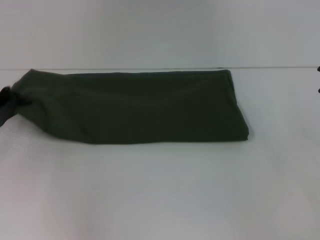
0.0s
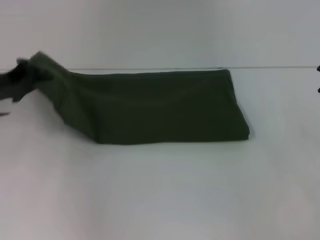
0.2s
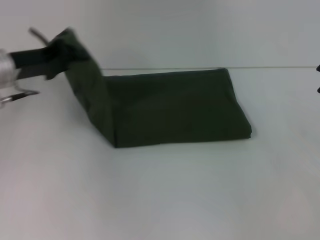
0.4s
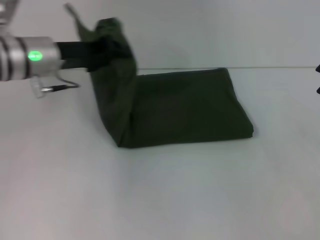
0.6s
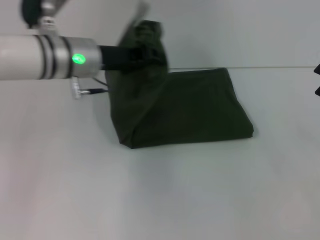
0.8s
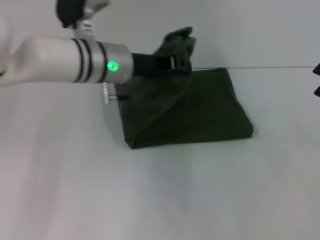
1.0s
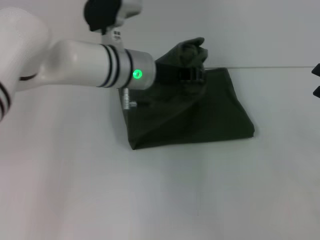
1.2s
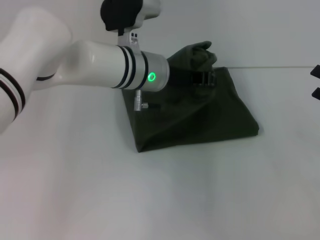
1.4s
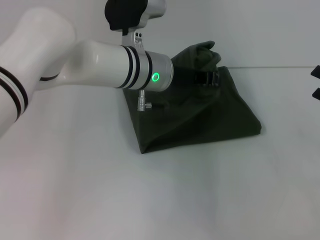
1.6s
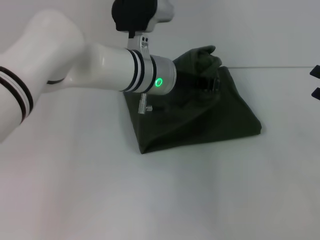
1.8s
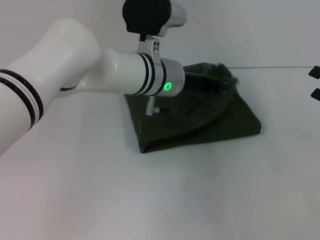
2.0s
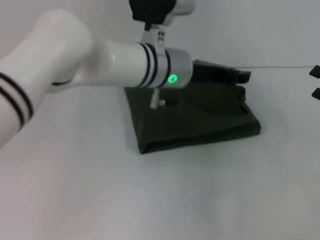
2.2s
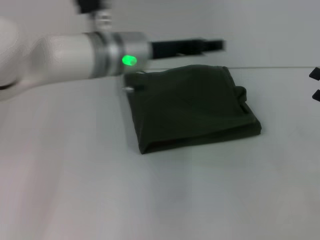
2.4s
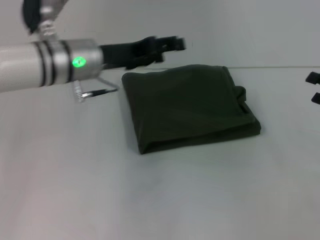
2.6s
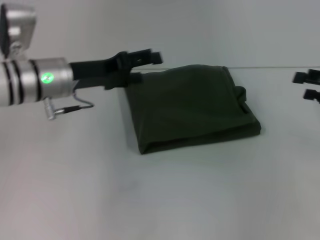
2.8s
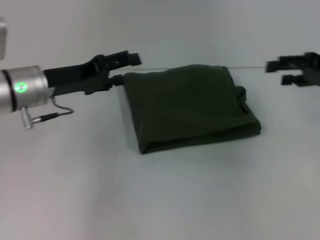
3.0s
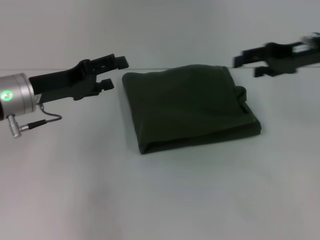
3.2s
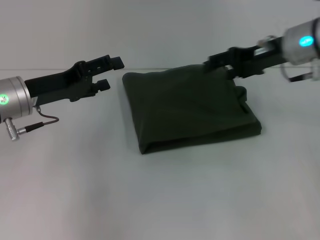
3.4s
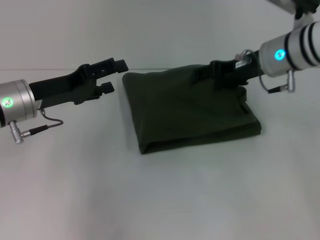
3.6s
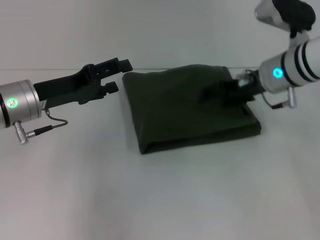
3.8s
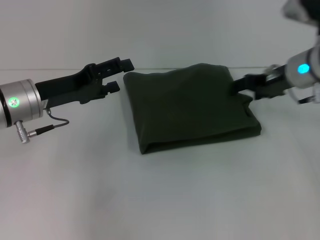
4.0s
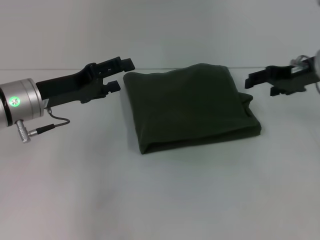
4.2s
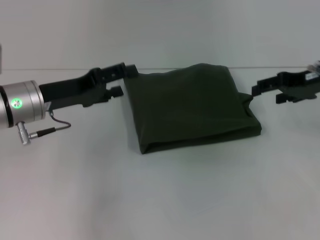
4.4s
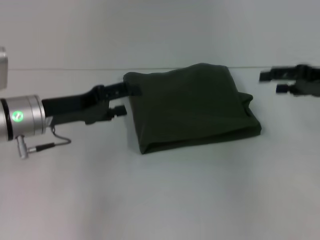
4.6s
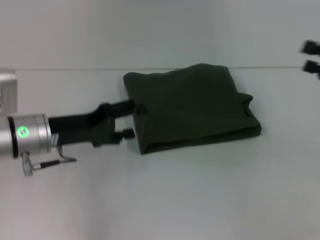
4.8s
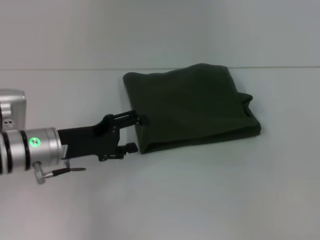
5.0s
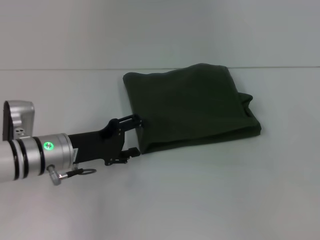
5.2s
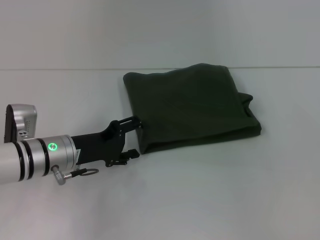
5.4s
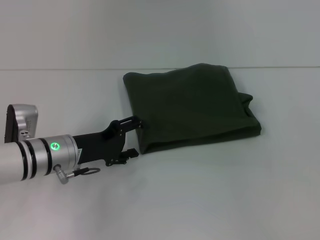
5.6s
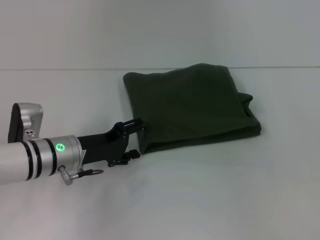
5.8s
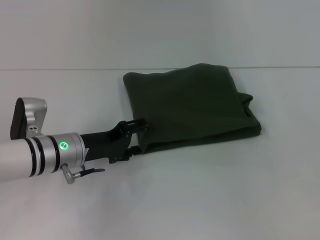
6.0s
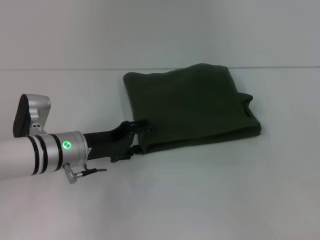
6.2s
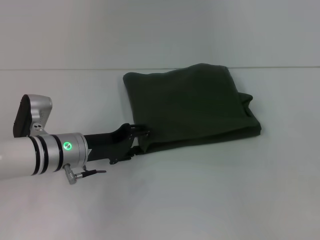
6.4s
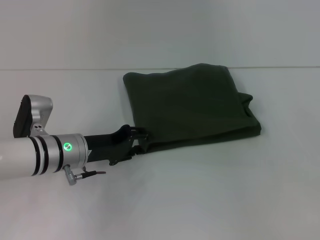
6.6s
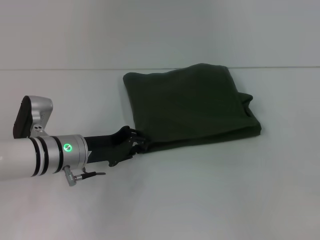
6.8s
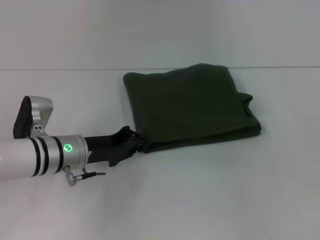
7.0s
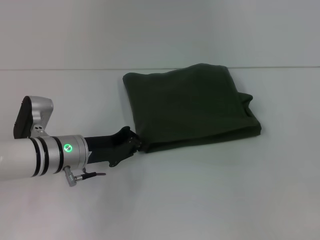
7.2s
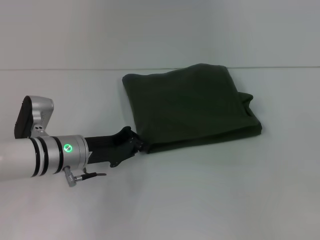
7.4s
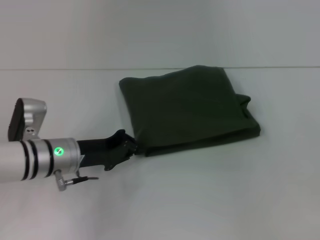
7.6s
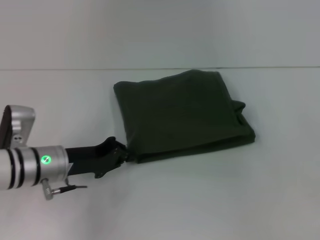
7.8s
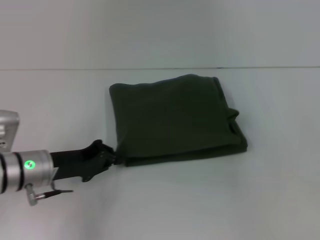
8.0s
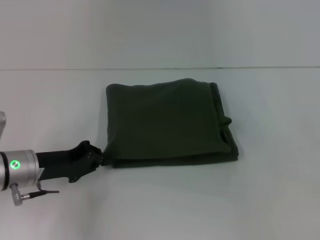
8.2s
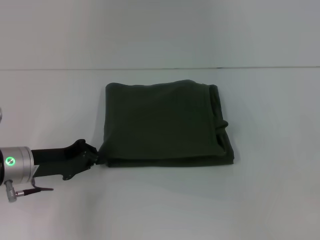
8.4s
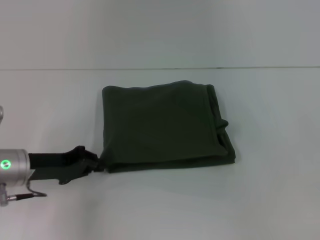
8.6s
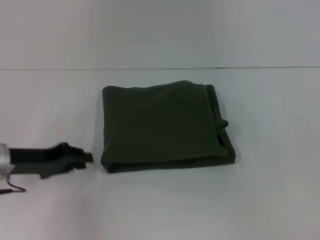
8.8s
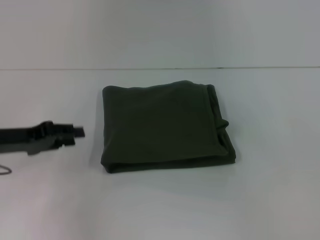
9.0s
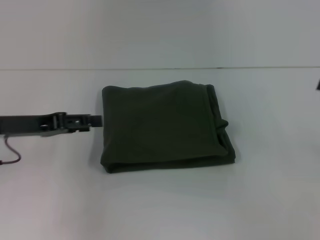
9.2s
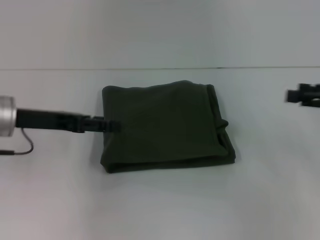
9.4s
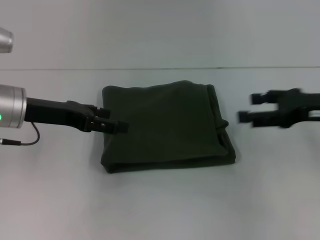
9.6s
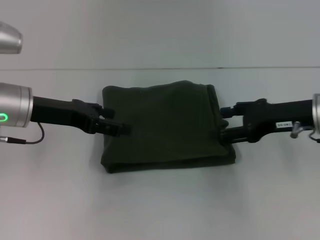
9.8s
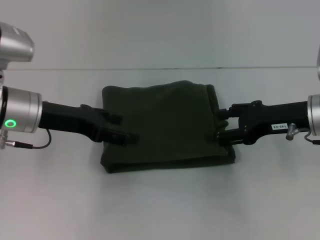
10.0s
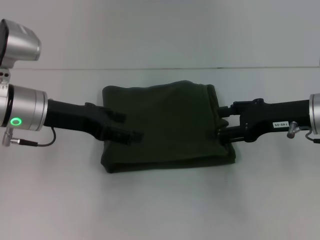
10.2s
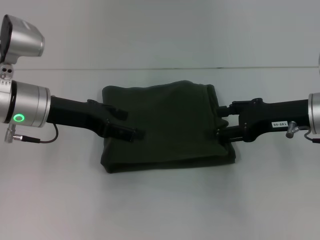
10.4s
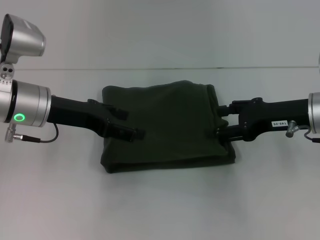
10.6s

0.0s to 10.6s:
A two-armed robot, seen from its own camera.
Step, 0.0s to 2.0s: Fold the clothes with your left hand.
0.0s to 1.6s: The left gripper goes some 30 cm to the right.
1.6s to 3.0s: The left gripper is displaced to the left by roughly 20 cm, and opens up. Meanwhile the right gripper goes roughly 10 cm upward and forward.
3.0s to 4.6s: The right gripper reaches some 15 cm to the left, then returns.
4.6s to 6.0s: The left gripper travels downward by roughly 5 cm. The right gripper is displaced to the right and backward by some 10 cm.
6.0s to 7.6s: The left gripper closes.
7.6s to 9.0s: The left gripper shifts roughly 10 cm to the left and upward.
9.0s to 10.6s: The left gripper goes about 10 cm to the right, and opens; the right gripper heads to the left, covering some 15 cm.

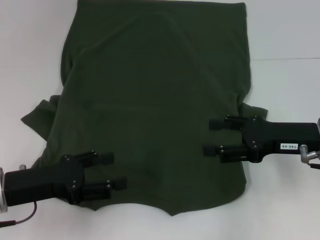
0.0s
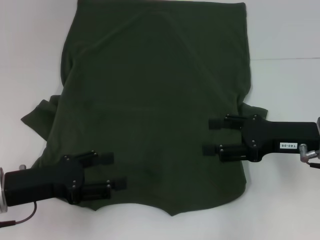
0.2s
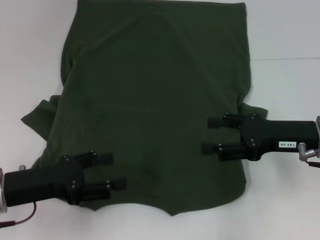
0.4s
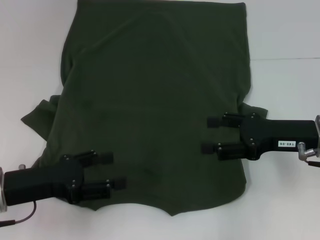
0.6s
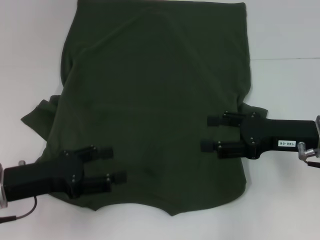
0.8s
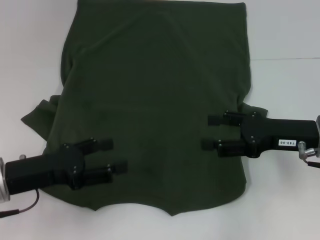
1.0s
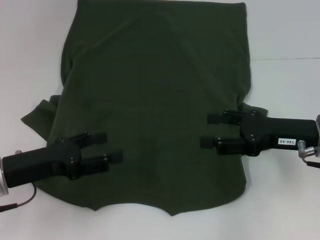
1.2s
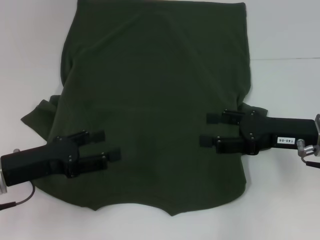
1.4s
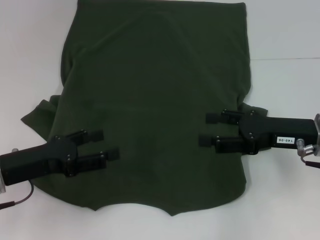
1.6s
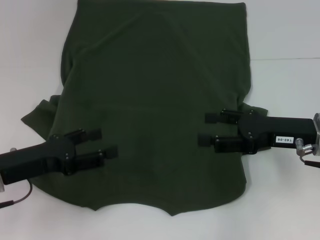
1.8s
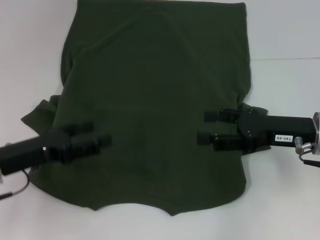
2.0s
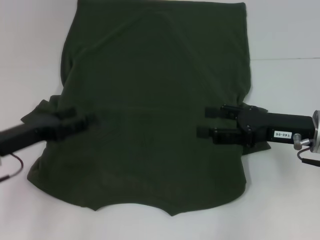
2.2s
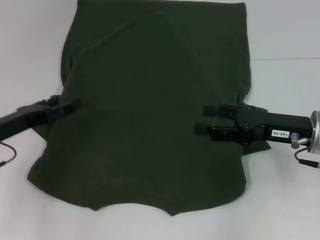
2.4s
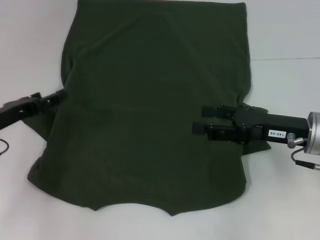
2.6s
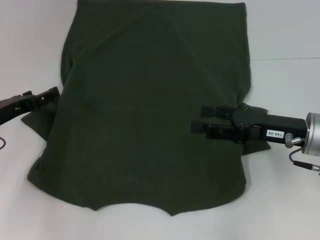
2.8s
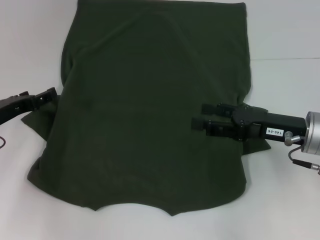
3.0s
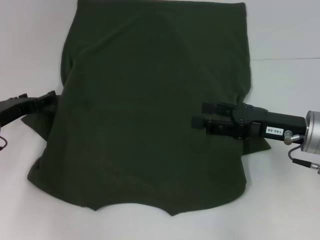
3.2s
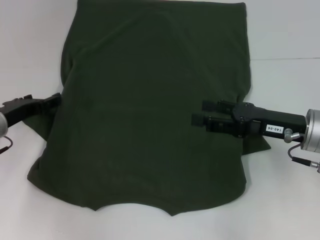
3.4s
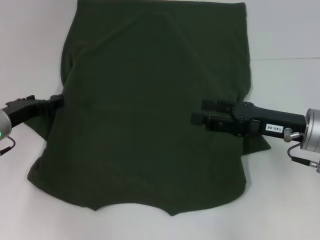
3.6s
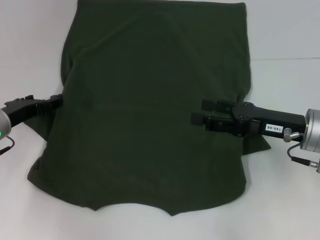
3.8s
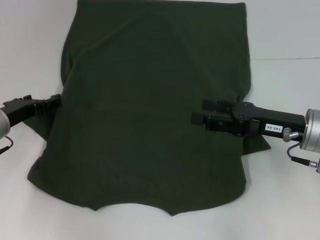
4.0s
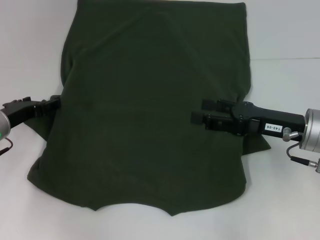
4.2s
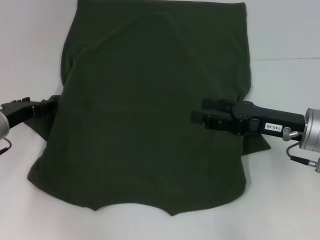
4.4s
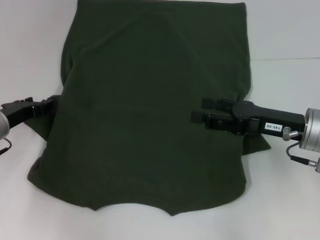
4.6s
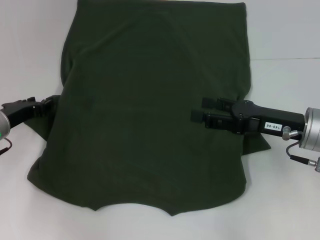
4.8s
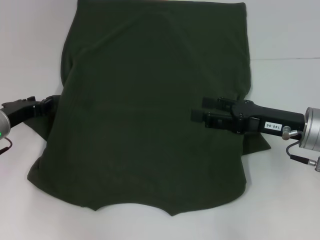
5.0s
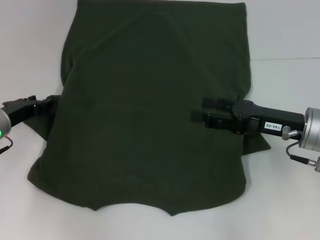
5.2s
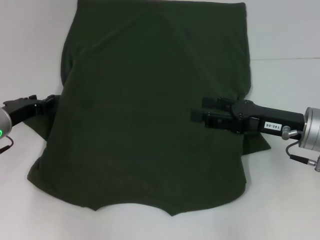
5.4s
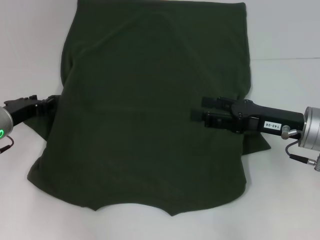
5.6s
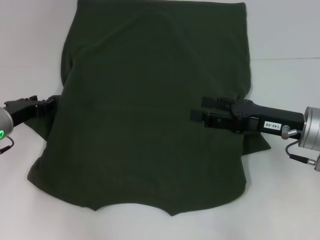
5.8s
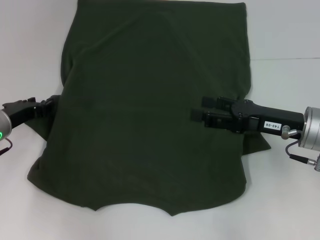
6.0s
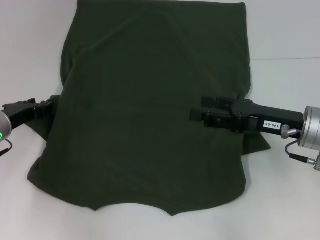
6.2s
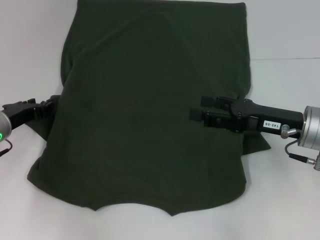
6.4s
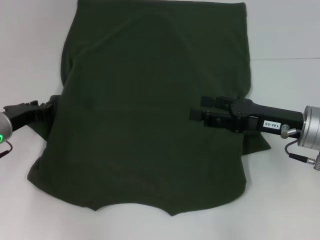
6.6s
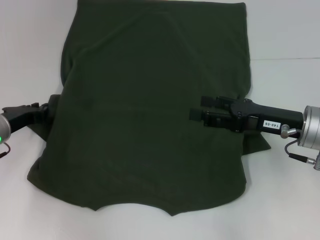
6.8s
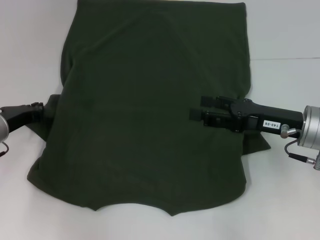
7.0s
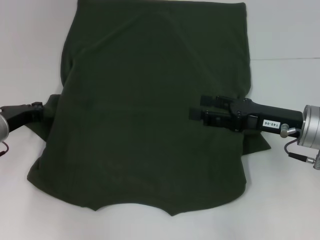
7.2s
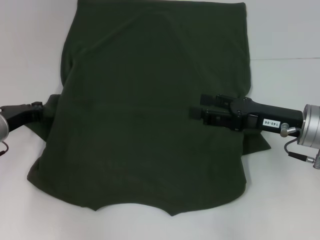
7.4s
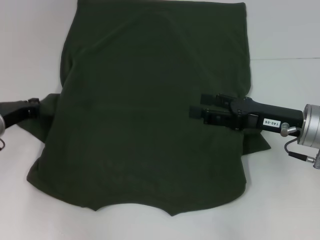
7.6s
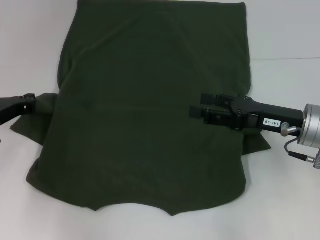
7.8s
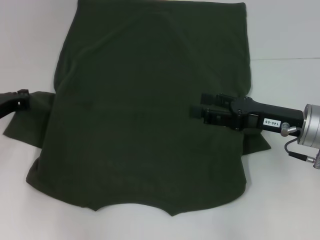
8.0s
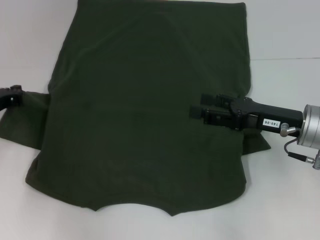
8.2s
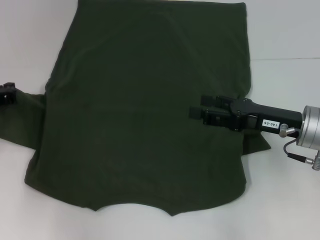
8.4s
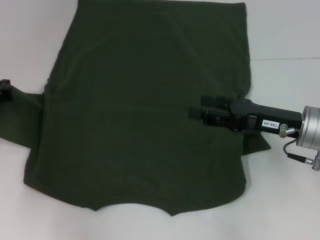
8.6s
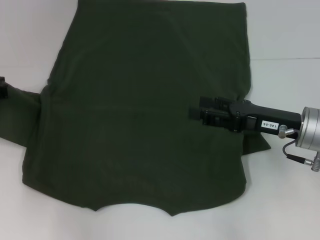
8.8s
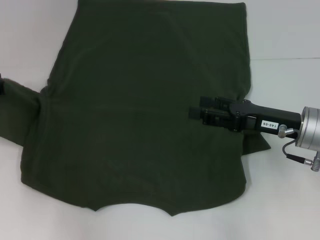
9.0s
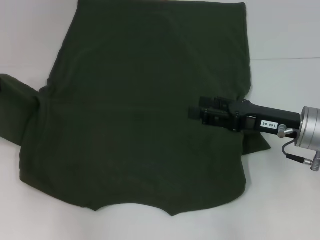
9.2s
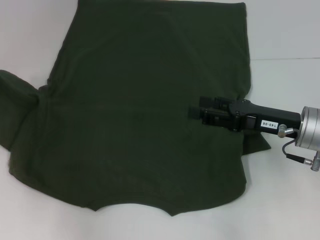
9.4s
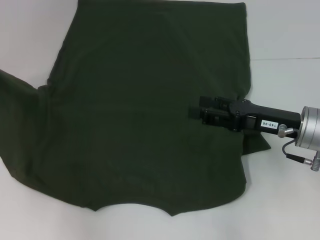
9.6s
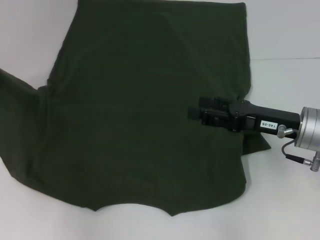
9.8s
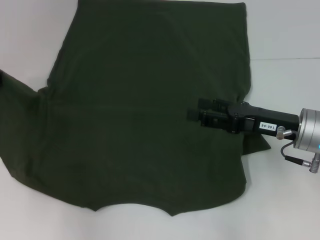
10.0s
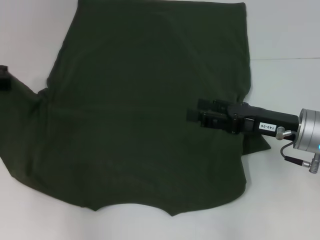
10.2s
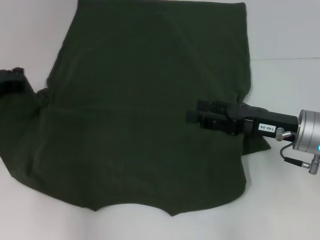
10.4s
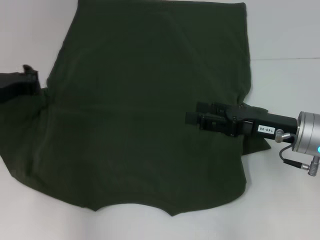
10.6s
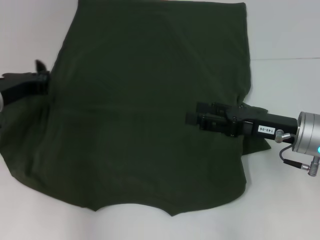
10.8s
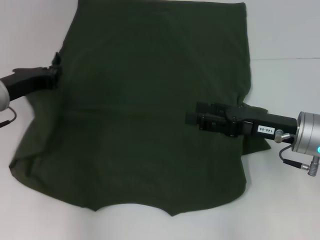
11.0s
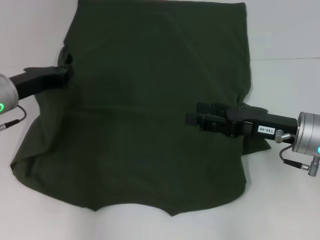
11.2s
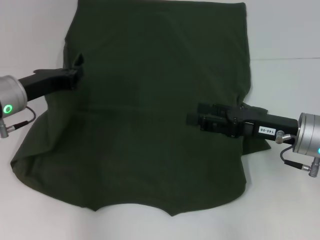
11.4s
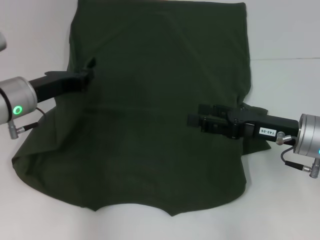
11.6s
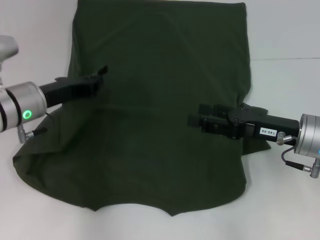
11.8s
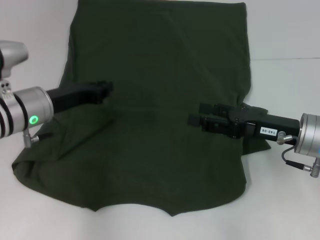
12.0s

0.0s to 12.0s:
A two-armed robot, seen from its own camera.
0.0s to 1.6s: The grippers move only a little.
1.6s to 3.0s: The left gripper heads forward, covering some 10 cm.
3.0s to 4.4s: The grippers move only a little.
6.0s to 7.6s: The left gripper closes.
7.6s to 9.0s: The left gripper ends up about 5 cm from where it was.
9.0s to 10.4s: The grippers move only a little.
10.4s to 12.0s: The left gripper is displaced to the right by roughly 10 cm.
